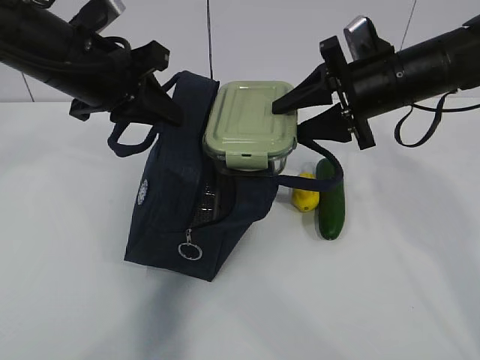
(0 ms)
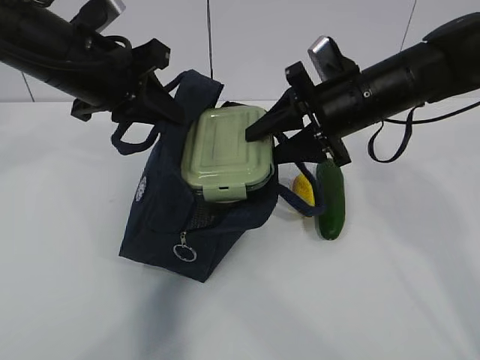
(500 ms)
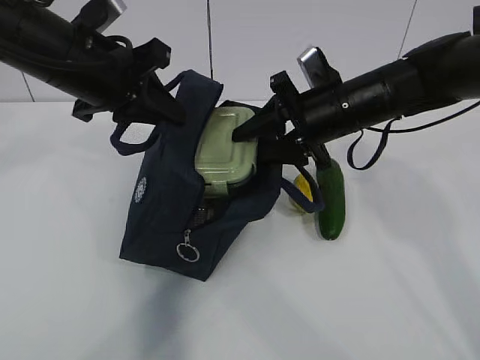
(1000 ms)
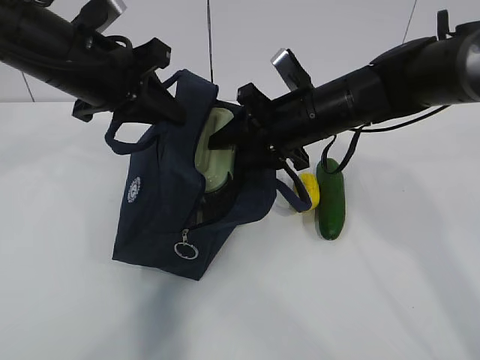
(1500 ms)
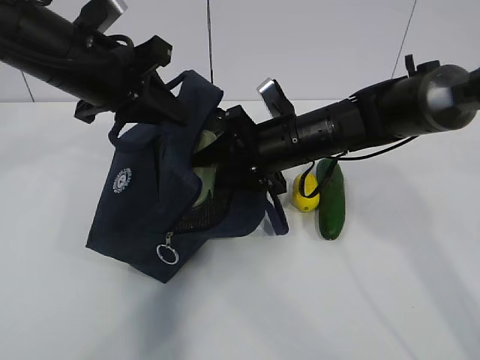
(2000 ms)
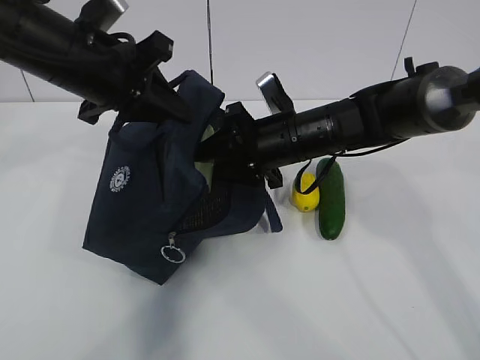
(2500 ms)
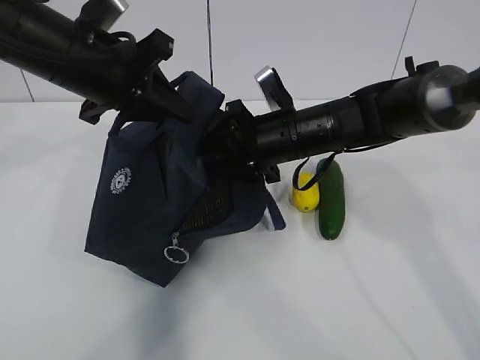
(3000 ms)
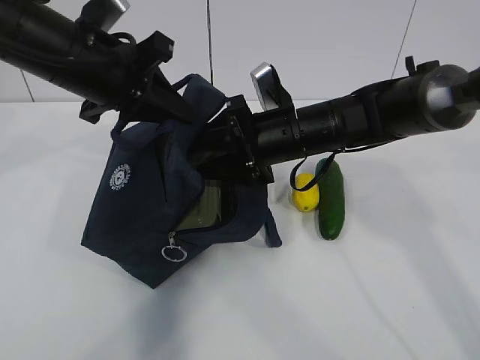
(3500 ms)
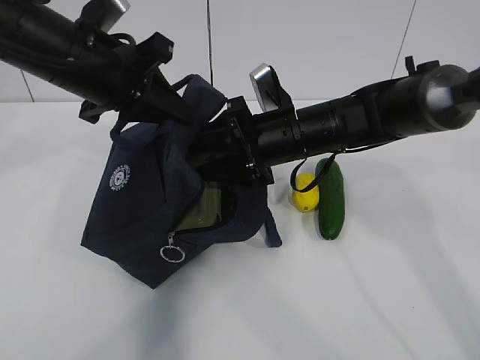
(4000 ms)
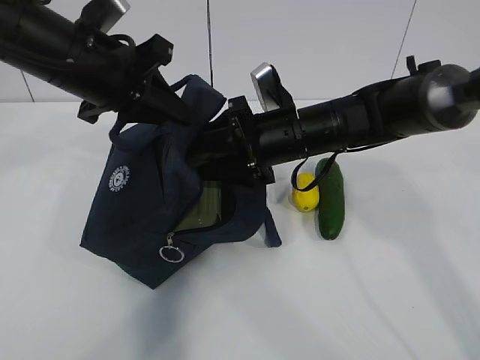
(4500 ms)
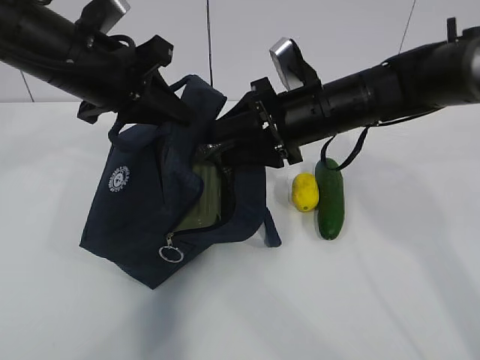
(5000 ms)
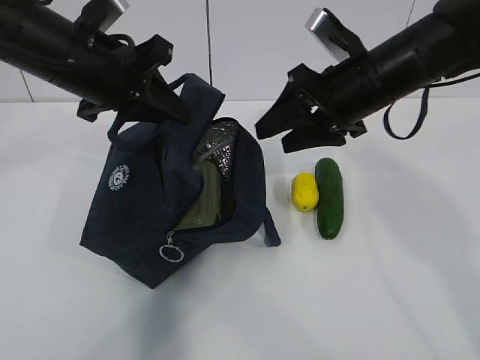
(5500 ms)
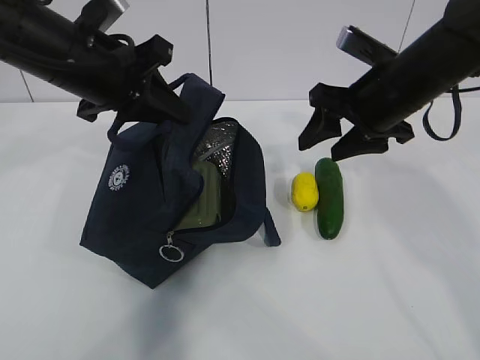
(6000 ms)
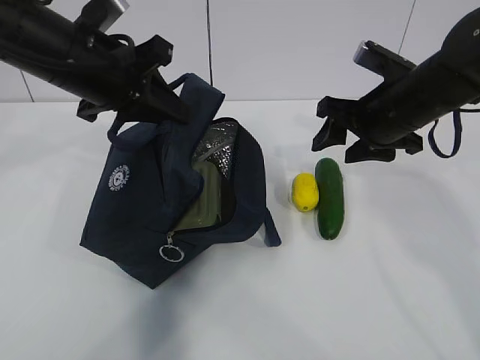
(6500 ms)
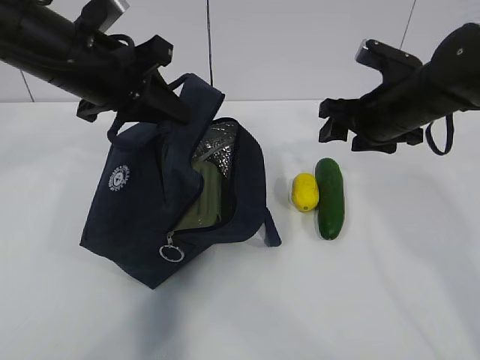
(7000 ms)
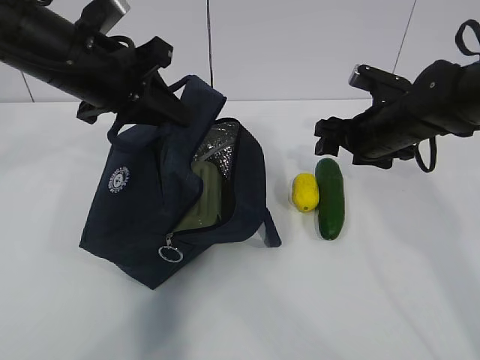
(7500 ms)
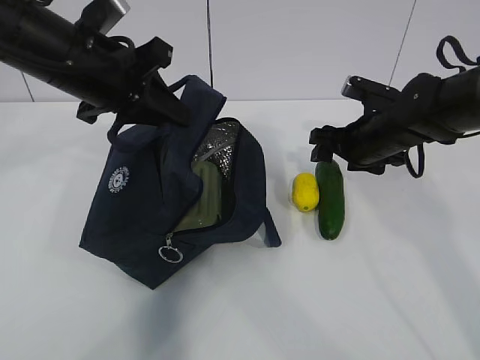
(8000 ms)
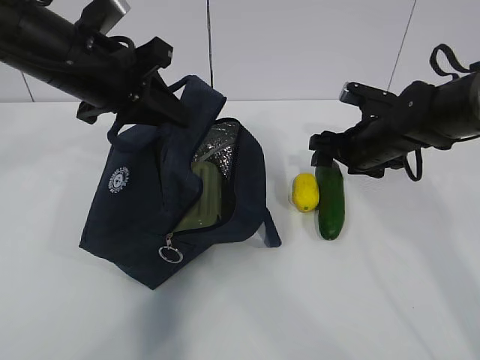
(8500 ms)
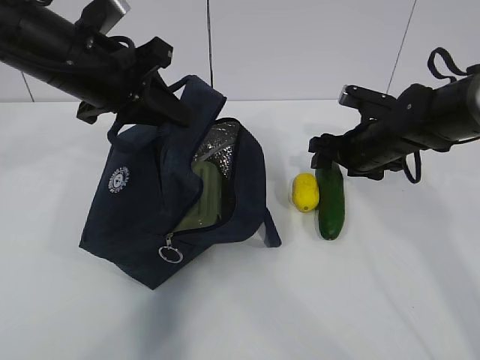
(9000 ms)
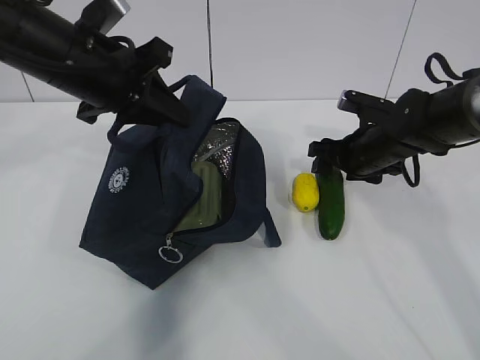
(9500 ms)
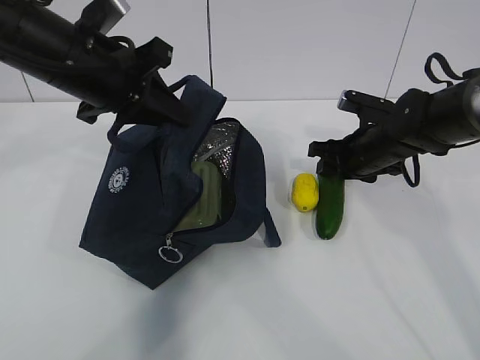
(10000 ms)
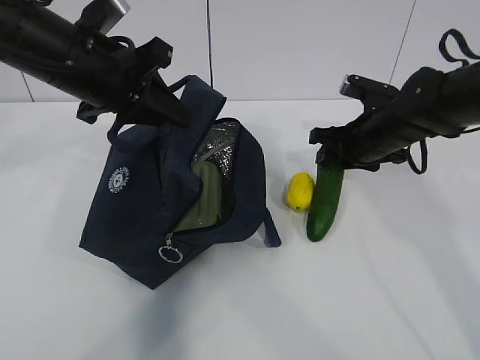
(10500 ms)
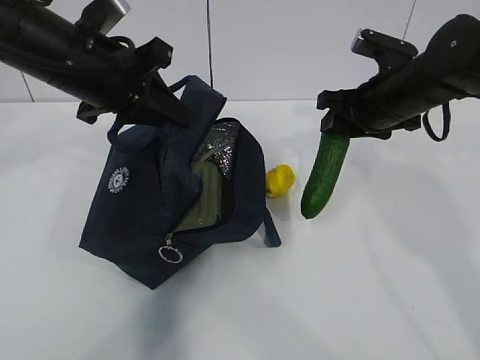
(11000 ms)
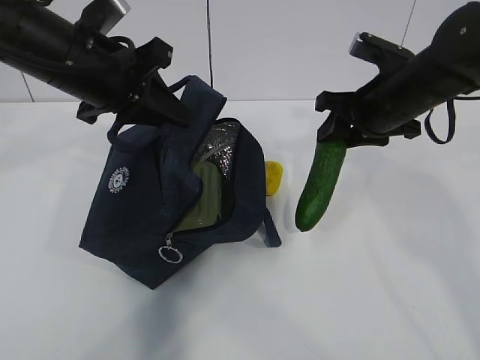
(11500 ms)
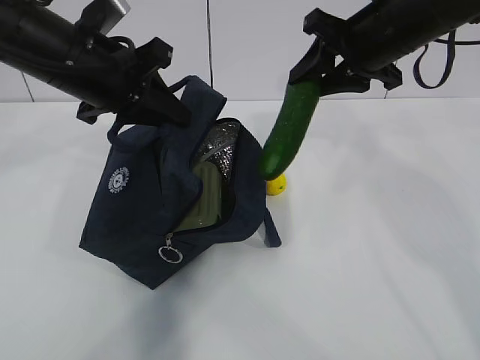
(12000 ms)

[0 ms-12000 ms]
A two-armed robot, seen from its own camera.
Step, 0 ms to 3000 ms: Grab the cucumber with your right hand.
Step, 3500 ms to 8000 ms: Place it into the bag with your right hand.
0 ms to 2000 ms: The right gripper travels to the left and downward by some 15 cm.
2000 ms to 4000 ms: The grippers make only small movements.
4000 ms to 6000 ms: The right gripper moves to the right and upward, roughly 10 cm.
6000 ms to 8000 ms: The right gripper heads downward and forward, covering roughly 10 cm.
8000 ms to 10000 ms: There are only small adjustments of the grippers.
10000 ms to 12000 ms: The right gripper is displaced upward by some 20 cm.

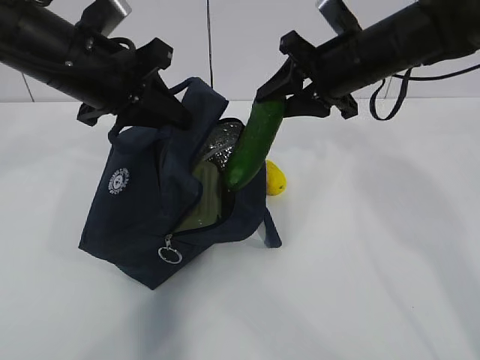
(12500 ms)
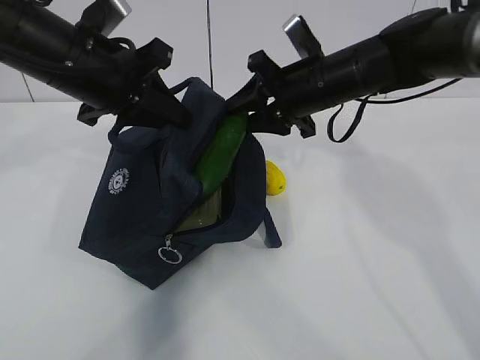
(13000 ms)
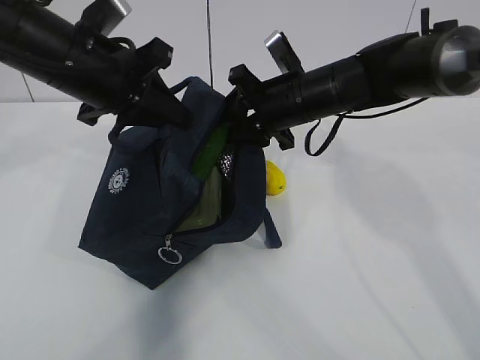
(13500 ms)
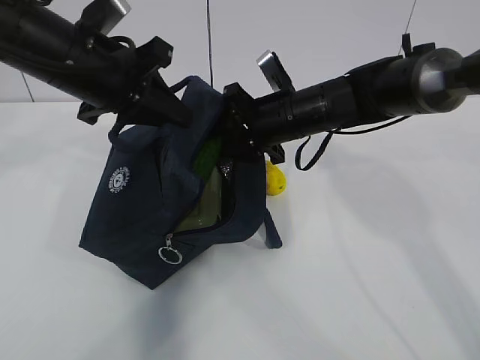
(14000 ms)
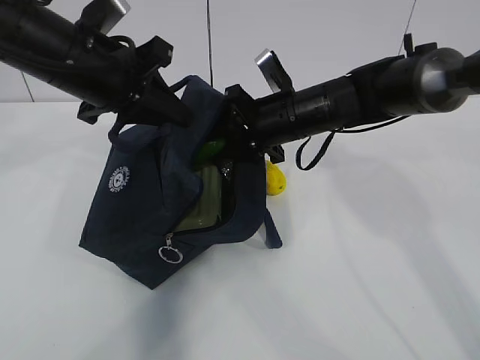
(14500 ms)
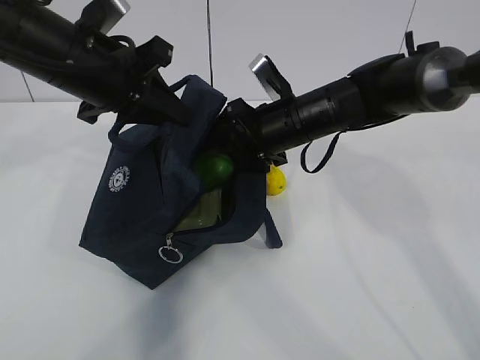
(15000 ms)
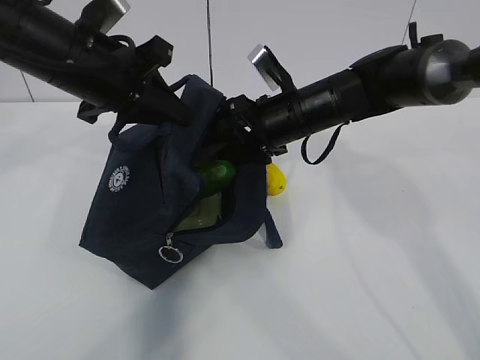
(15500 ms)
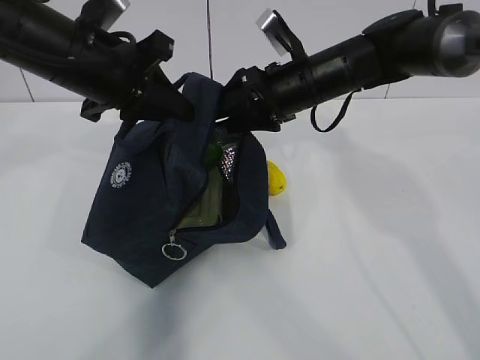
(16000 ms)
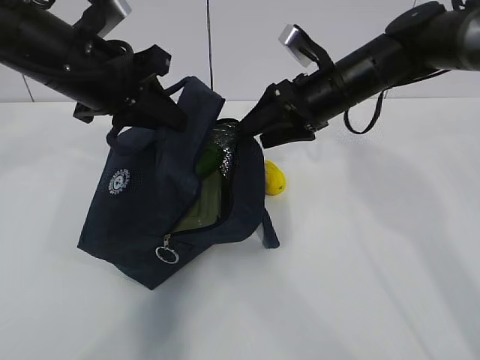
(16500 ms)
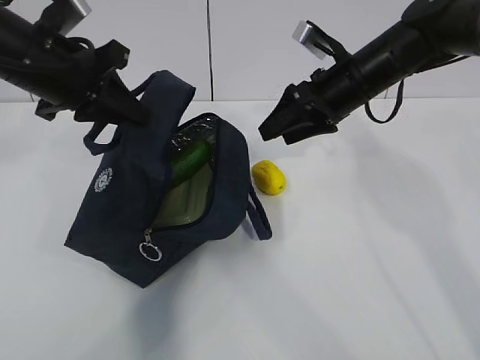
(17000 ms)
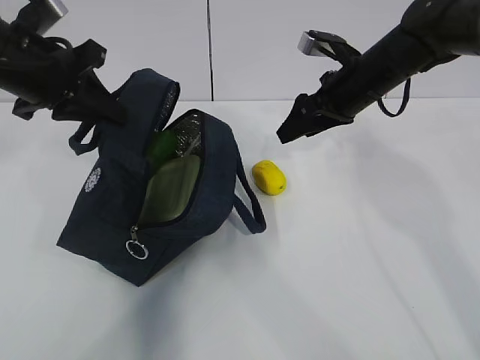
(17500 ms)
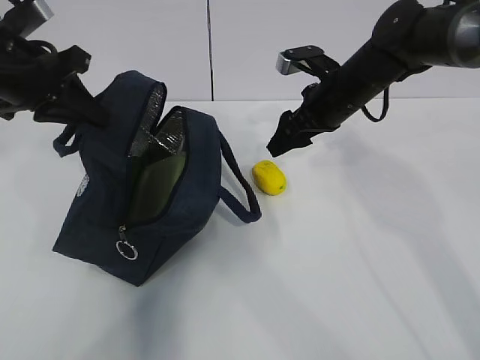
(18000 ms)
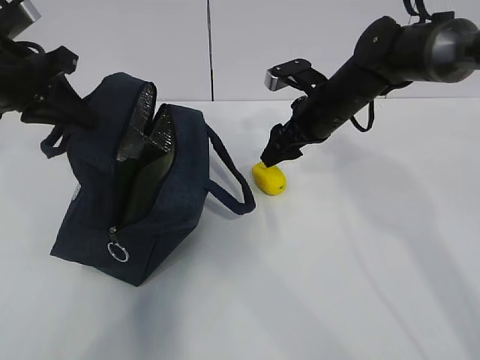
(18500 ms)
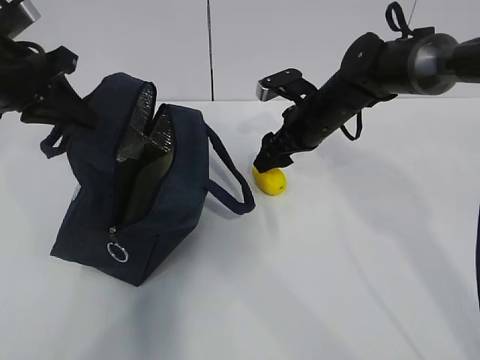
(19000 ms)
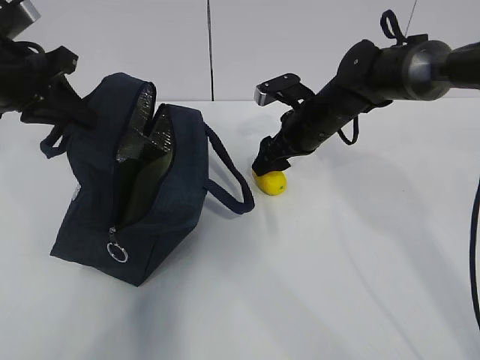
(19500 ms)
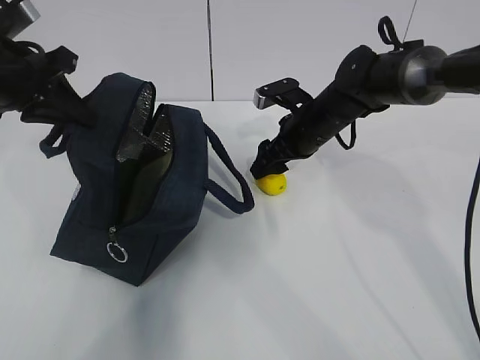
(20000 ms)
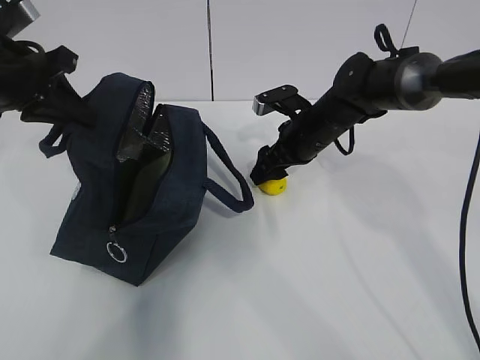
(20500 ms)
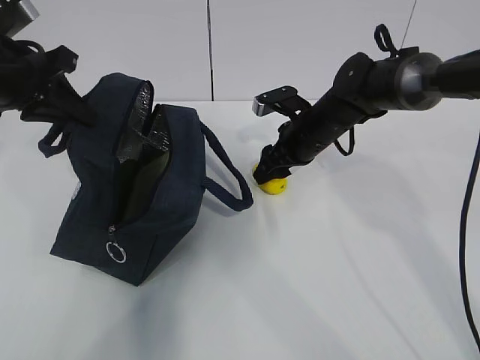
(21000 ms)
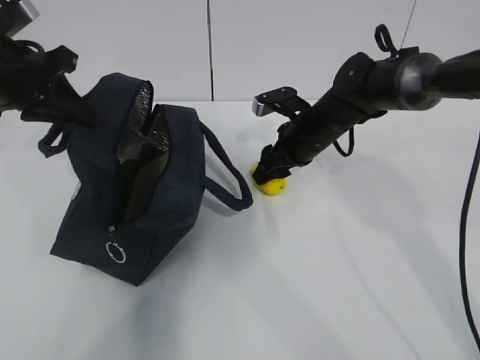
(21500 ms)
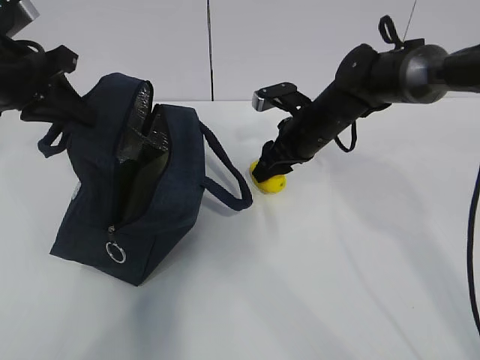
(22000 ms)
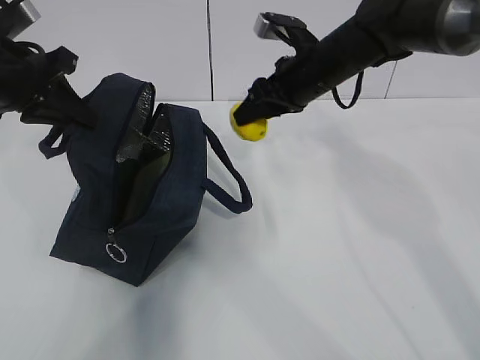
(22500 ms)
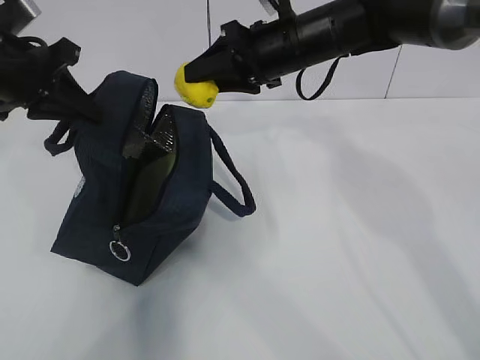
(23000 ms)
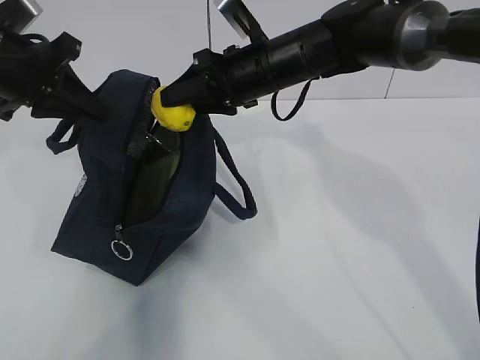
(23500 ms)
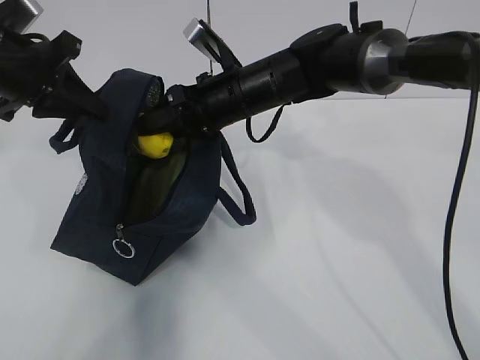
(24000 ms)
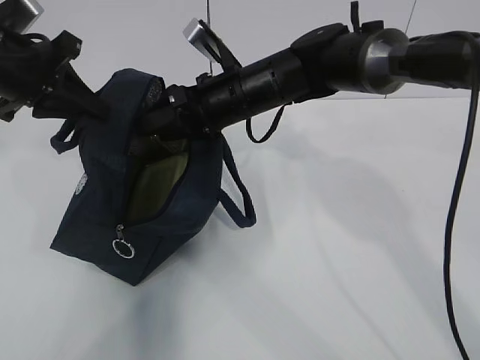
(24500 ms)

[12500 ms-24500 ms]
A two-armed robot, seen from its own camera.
Step, 15500 ms to 19000 ms: Grab the lunch bag with your right hand.
12500 ms to 14500 ms: The right gripper heads downward and to the left, covering about 10 cm.
14500 ms to 16500 ms: The right gripper goes approximately 5 cm to the right.
16500 ms to 18500 ms: The left gripper moves to the left, some 10 cm.
18500 ms to 20500 ms: The grippers move only a little.
20500 ms to 22500 ms: The right gripper travels upward by approximately 10 cm, and closes.
22500 ms to 24500 ms: The right gripper shifts approximately 10 cm to the left.

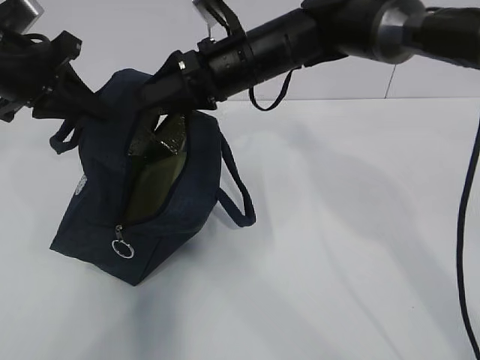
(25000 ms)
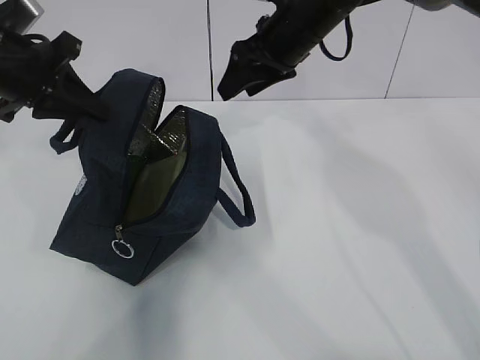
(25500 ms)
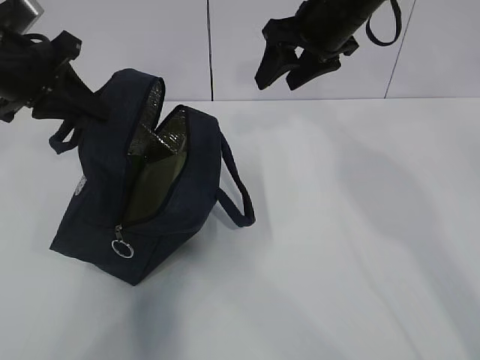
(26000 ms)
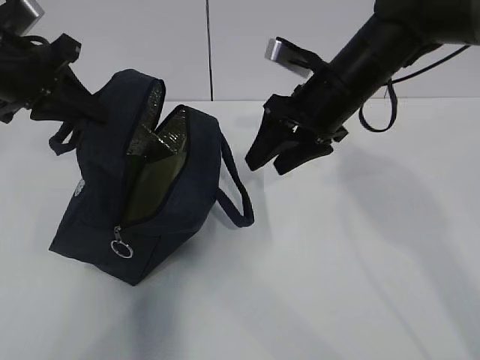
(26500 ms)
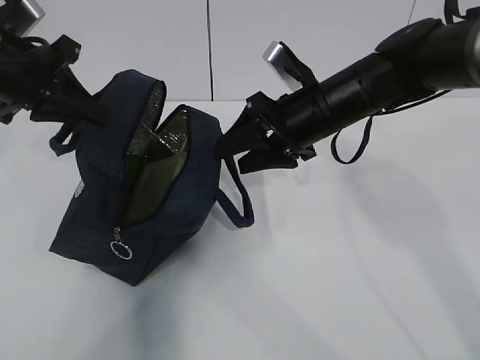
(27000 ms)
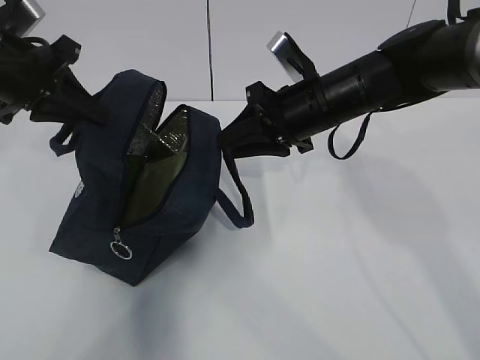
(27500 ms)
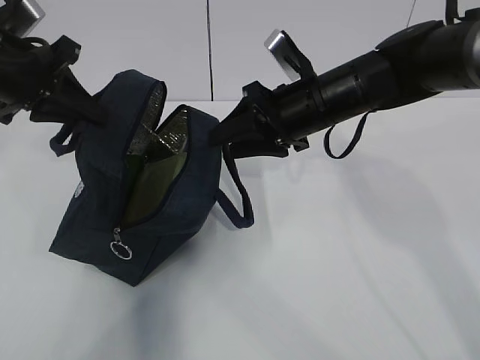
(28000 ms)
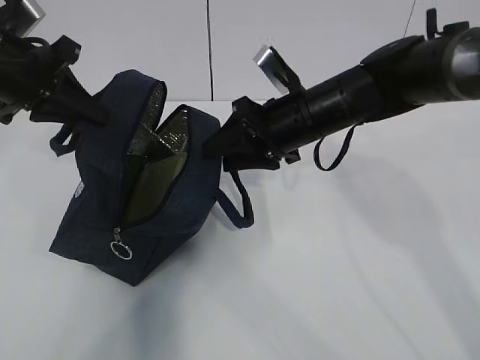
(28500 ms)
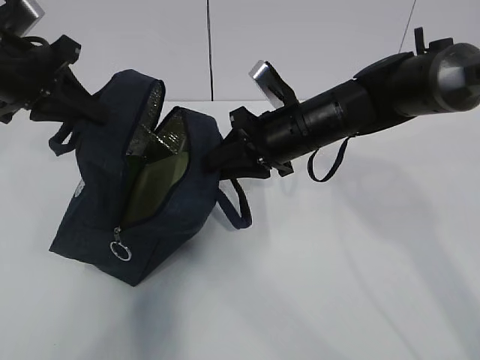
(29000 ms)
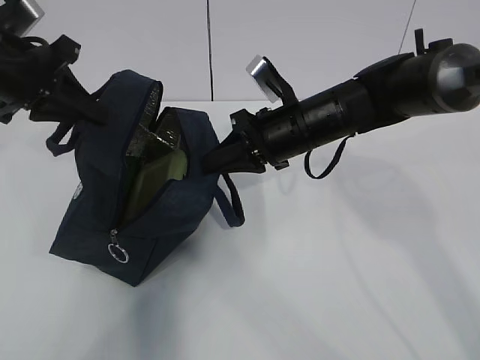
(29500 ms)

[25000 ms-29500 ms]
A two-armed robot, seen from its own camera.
25000 ms to 27000 ms: The right gripper is displaced to the right by about 10 cm.
27000 ms to 29500 ms: The right gripper closes up.
